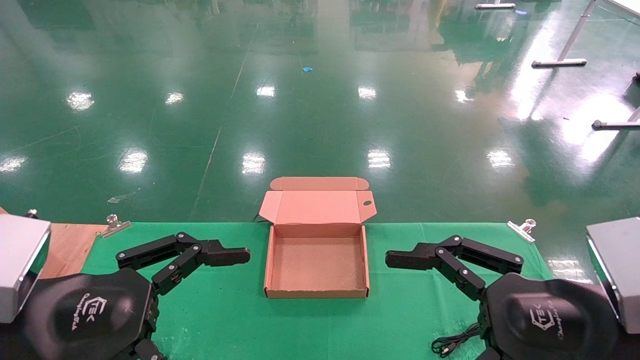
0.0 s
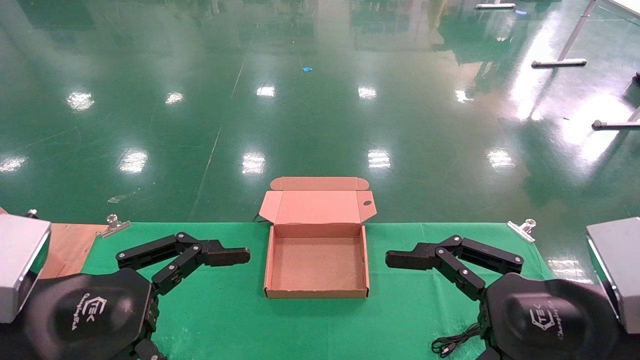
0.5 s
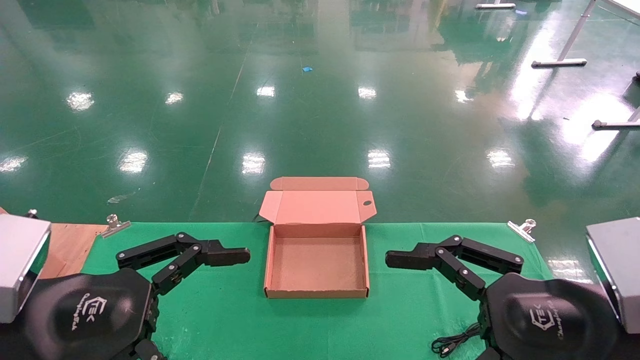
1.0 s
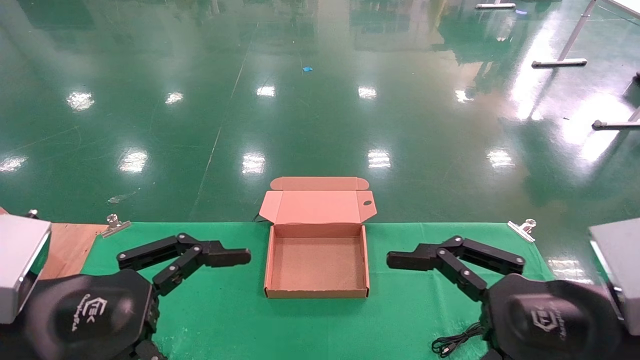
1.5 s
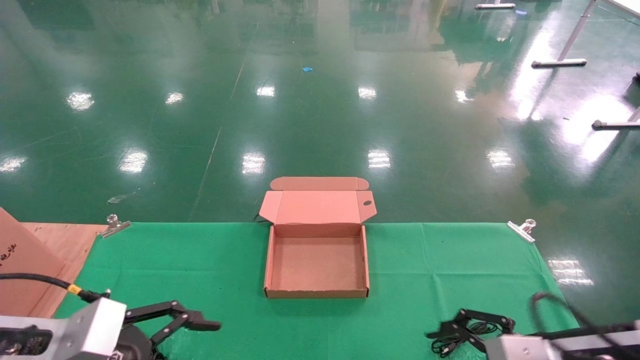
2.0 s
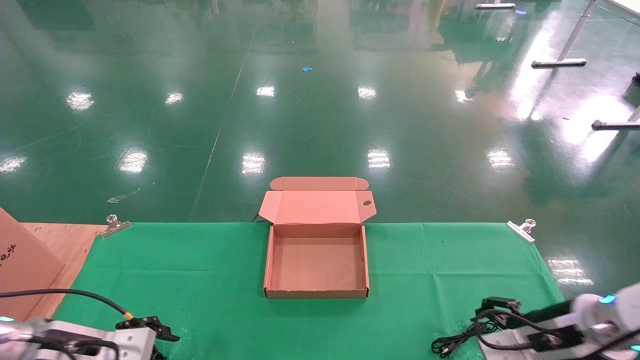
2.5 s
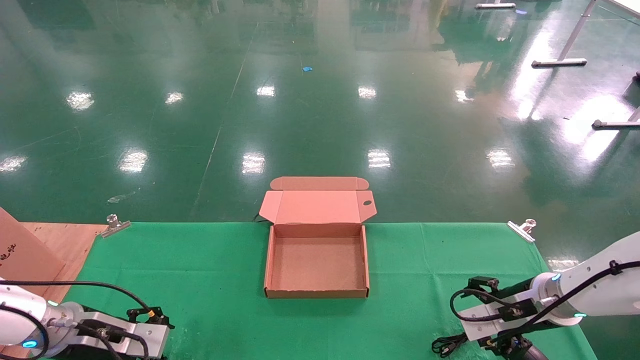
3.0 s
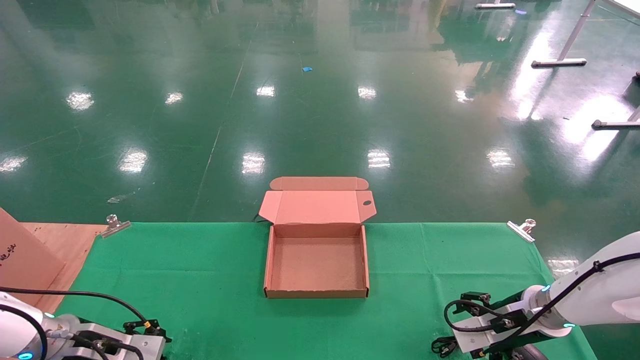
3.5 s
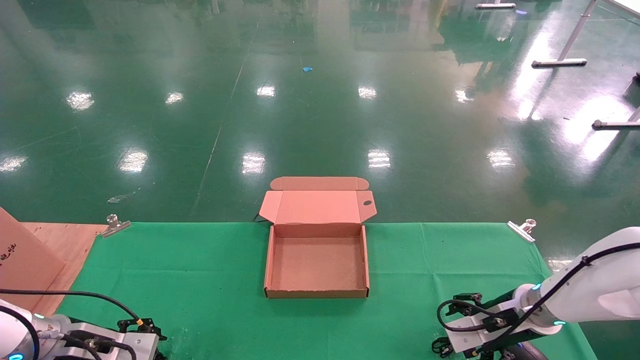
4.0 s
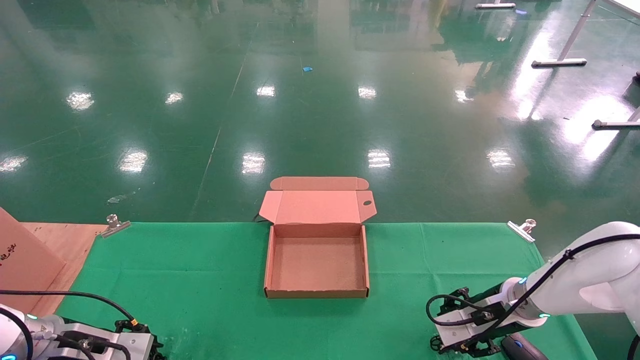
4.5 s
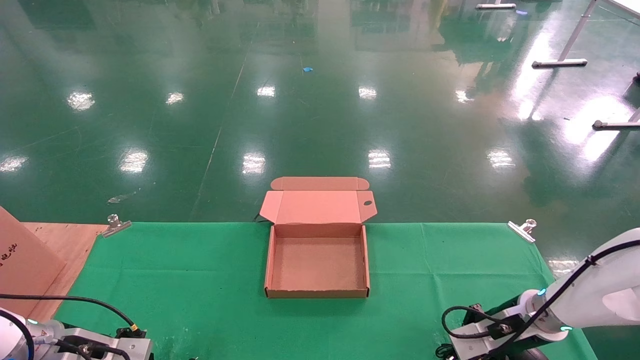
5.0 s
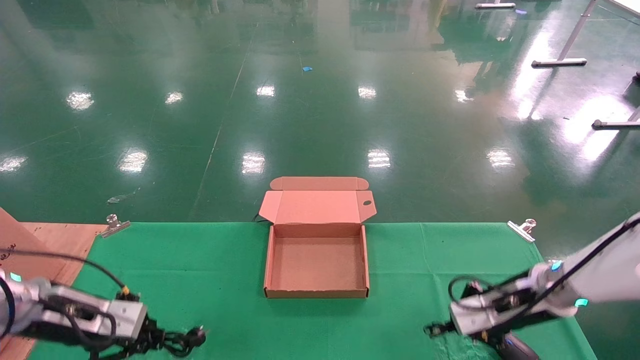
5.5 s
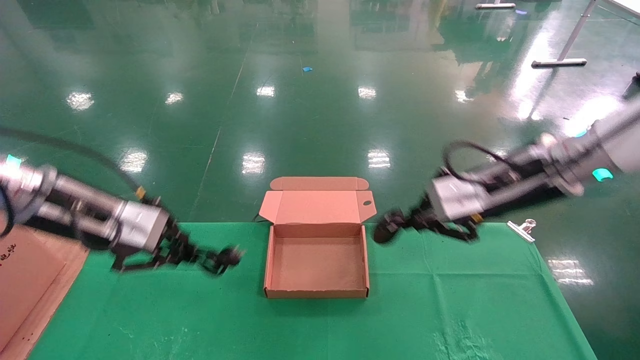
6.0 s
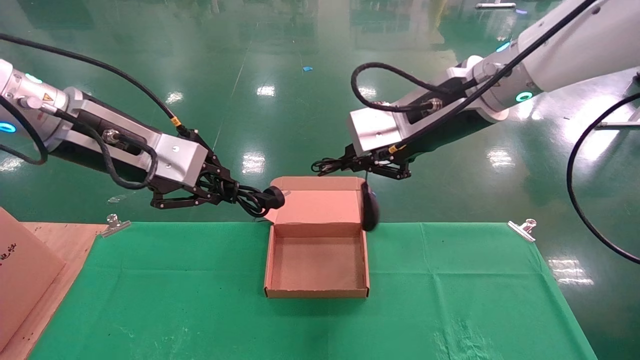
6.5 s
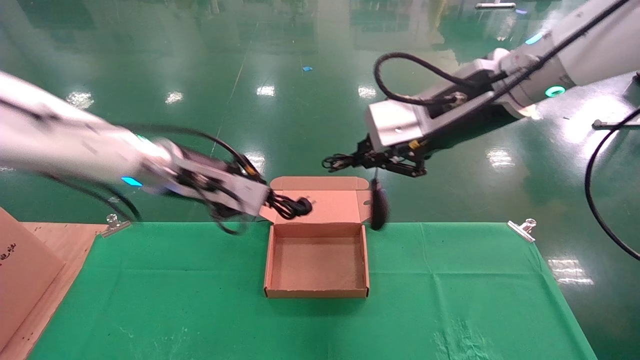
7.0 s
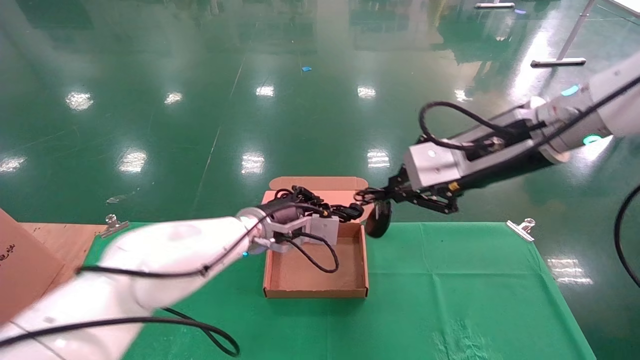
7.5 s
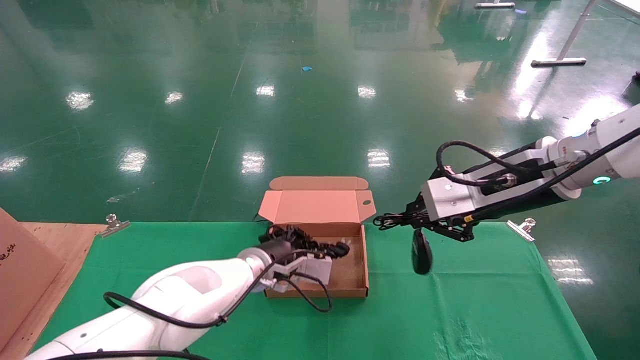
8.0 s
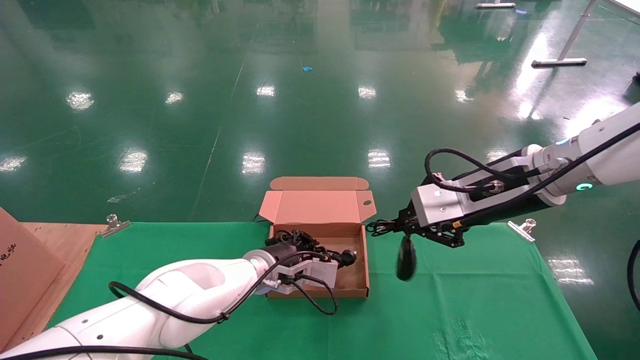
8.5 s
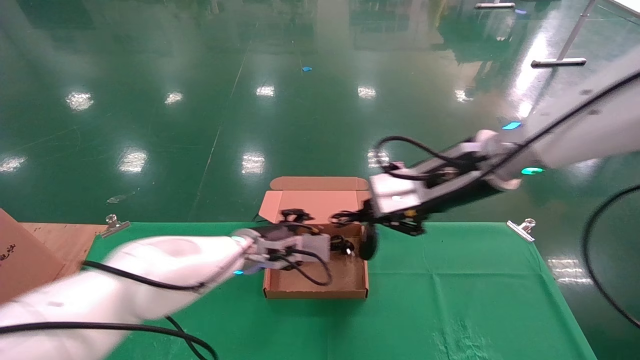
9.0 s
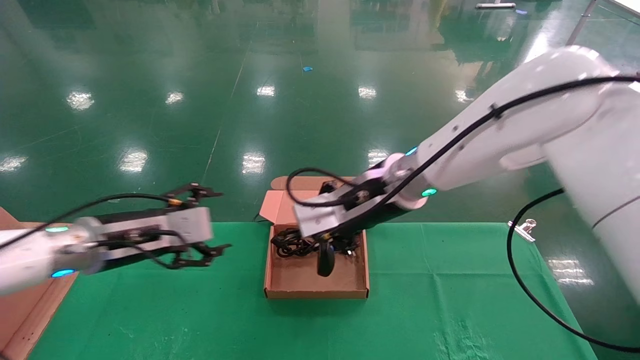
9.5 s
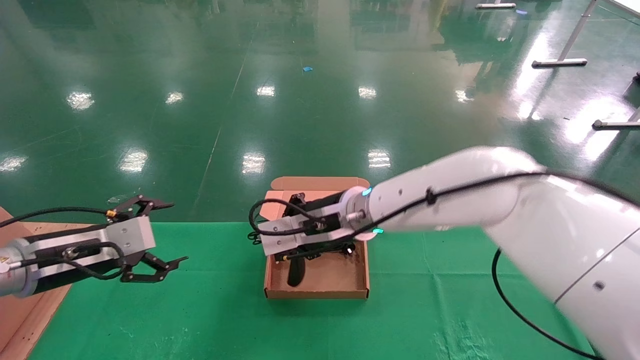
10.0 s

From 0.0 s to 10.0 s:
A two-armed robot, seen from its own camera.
Step, from 2.5 s to 5.5 s: Grab and lift both the mouse and power cord from the accessory packaging area at the same time.
From 0.0 s to 2.0 s: The two grippers go approximately 10 cm downward and forward.
From 2.0 s to 4.0 s: The right gripper goes roughly 20 cm forward and downward; the left gripper is displaced forward, downward and to the left by about 20 cm.
From 4.0 s to 6.0 s: Both grippers move upward, roughly 25 cm. The left gripper closes. Meanwhile the right gripper closes up.
From 6.0 s to 8.0 s: The right gripper moves roughly 10 cm upward and comes back; the left gripper travels to the right, downward and forward by about 30 cm.
From 8.0 s to 10.0 s: The left gripper goes some 30 cm to the left and backward, and opens up; the right gripper moves to the left and downward, roughly 20 cm.

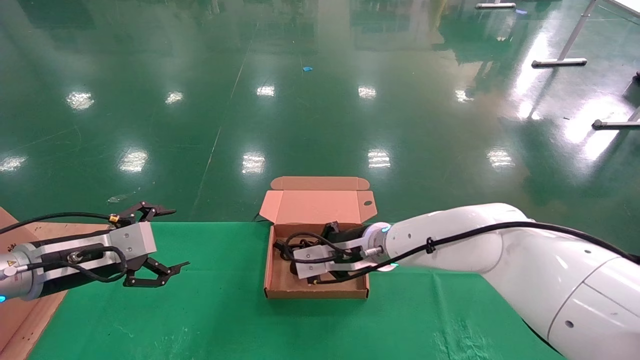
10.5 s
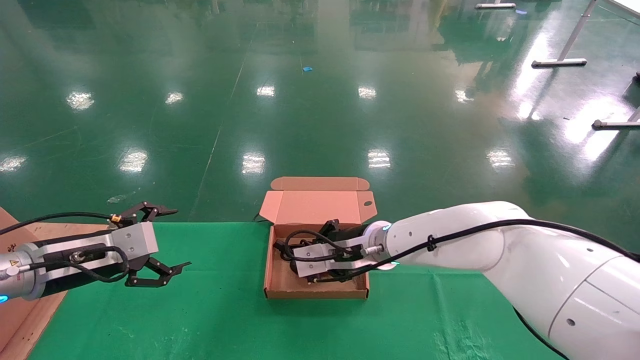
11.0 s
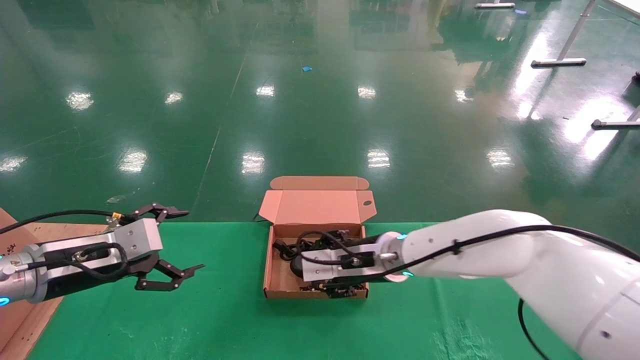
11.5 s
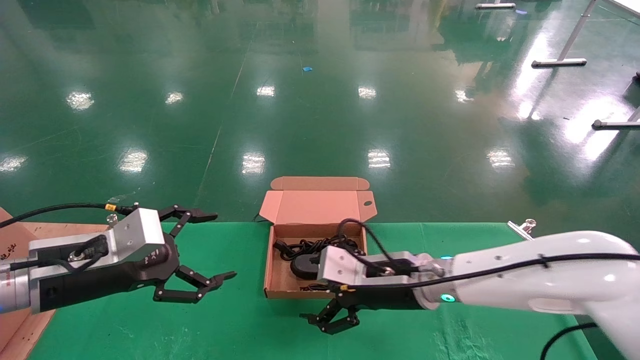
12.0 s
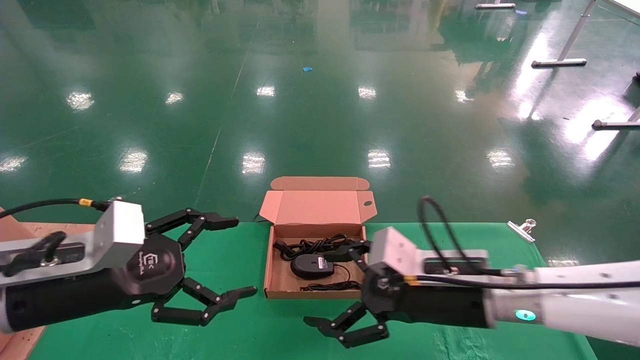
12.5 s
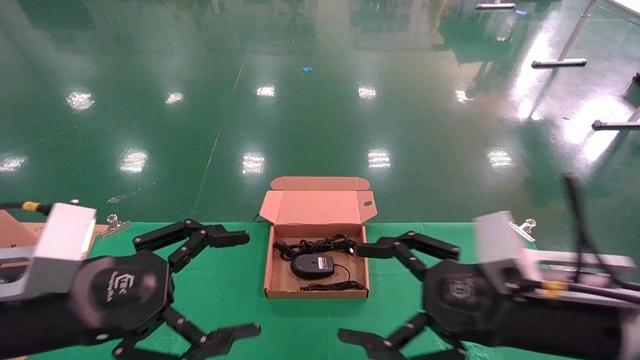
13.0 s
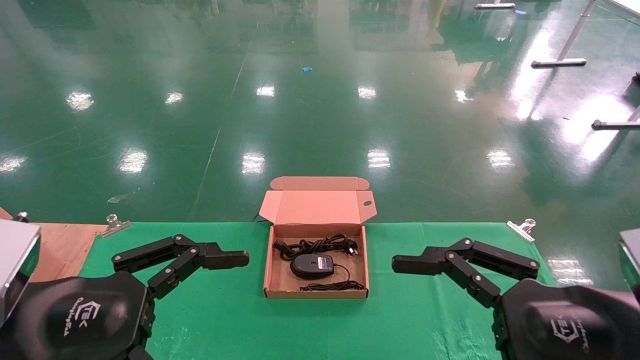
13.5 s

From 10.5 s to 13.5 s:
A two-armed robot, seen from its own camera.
From 10.5 s to 12.0 s: The right gripper travels backward and to the right by about 10 cm, and opens up. Meanwhile the left gripper is displaced to the right by about 5 cm.
From 12.0 s to 13.5 s: The left gripper goes roughly 15 cm backward. Meanwhile the right gripper is displaced backward and to the right by some 25 cm.
